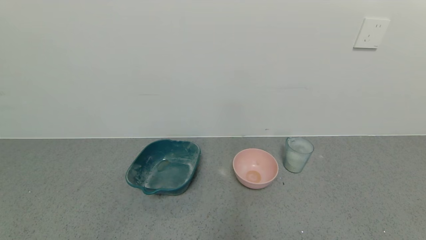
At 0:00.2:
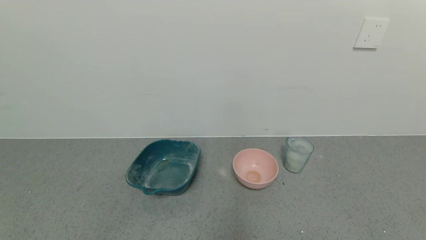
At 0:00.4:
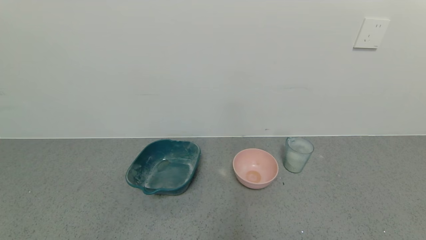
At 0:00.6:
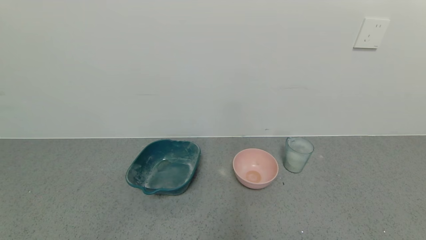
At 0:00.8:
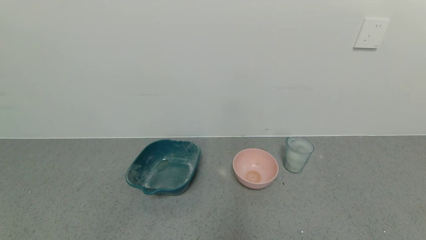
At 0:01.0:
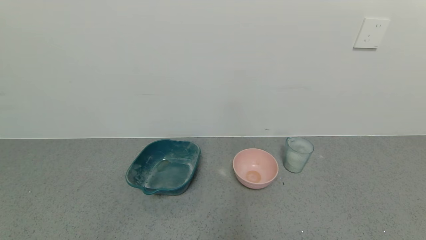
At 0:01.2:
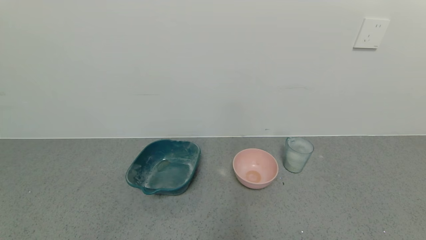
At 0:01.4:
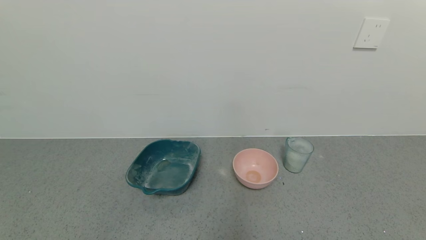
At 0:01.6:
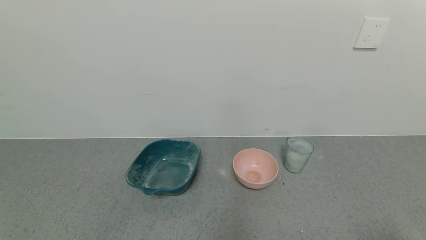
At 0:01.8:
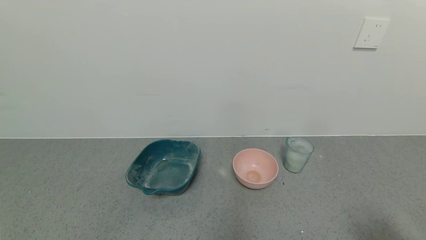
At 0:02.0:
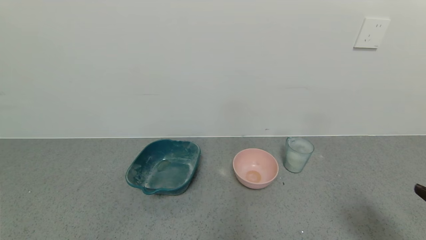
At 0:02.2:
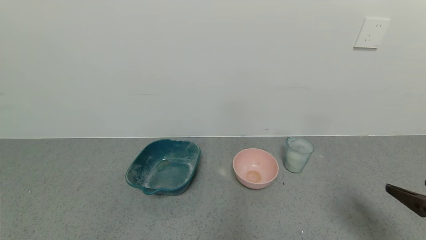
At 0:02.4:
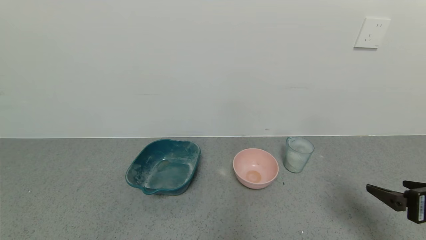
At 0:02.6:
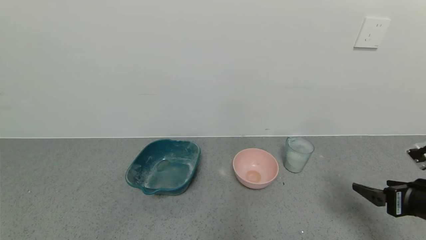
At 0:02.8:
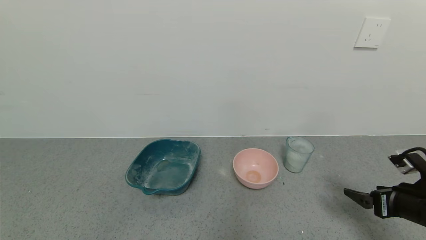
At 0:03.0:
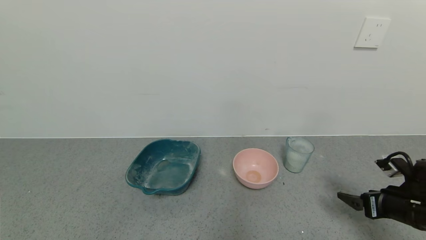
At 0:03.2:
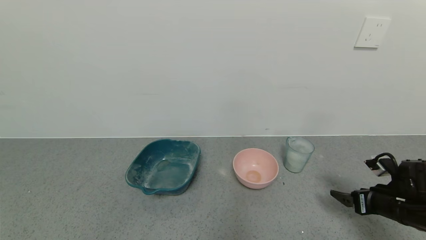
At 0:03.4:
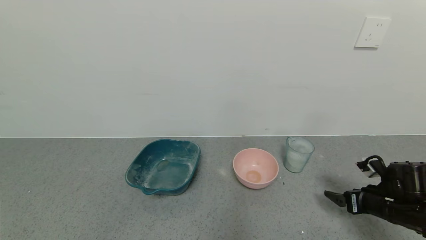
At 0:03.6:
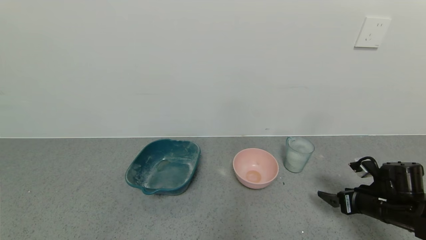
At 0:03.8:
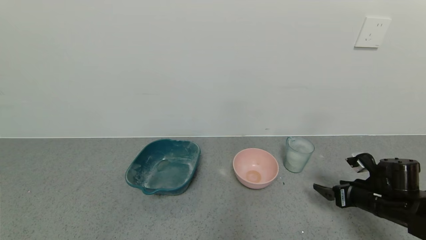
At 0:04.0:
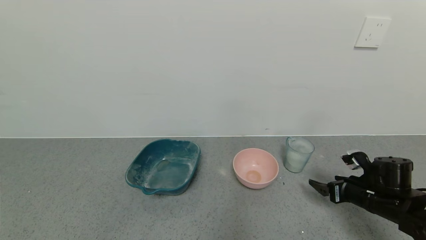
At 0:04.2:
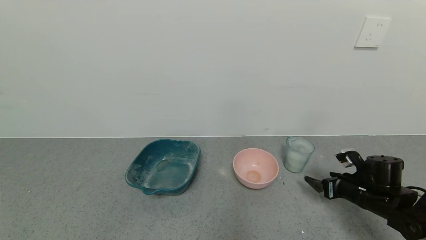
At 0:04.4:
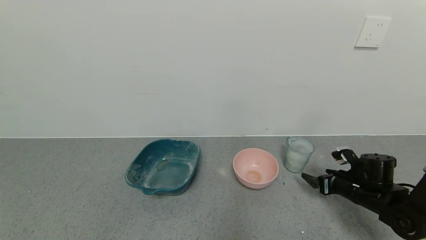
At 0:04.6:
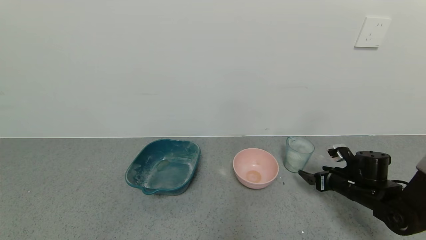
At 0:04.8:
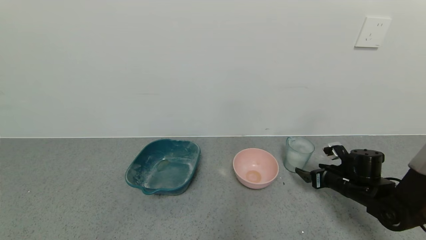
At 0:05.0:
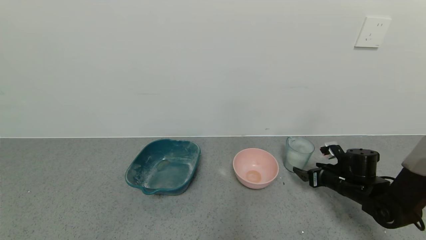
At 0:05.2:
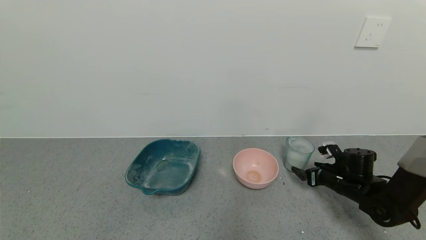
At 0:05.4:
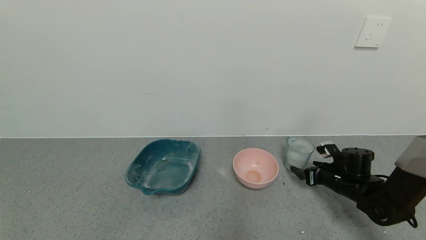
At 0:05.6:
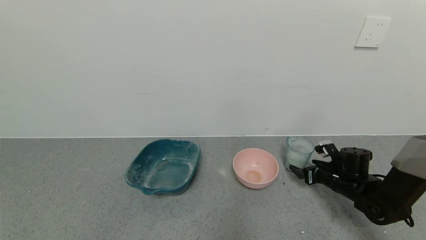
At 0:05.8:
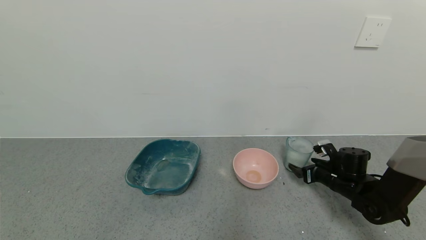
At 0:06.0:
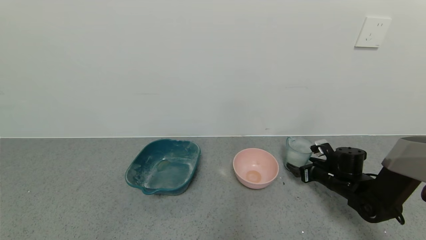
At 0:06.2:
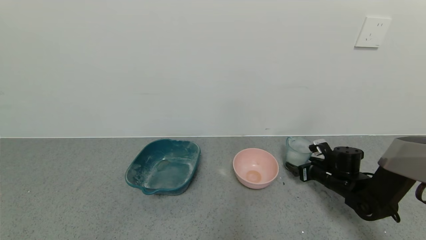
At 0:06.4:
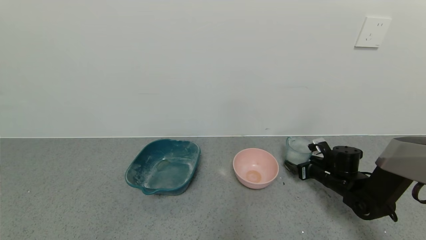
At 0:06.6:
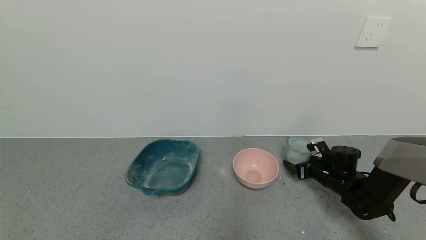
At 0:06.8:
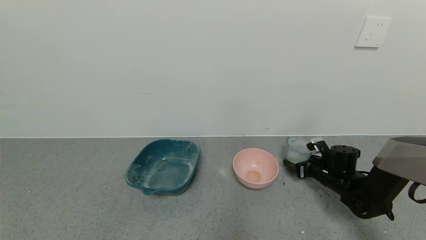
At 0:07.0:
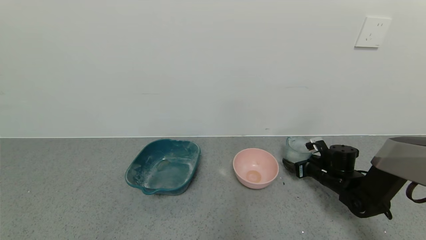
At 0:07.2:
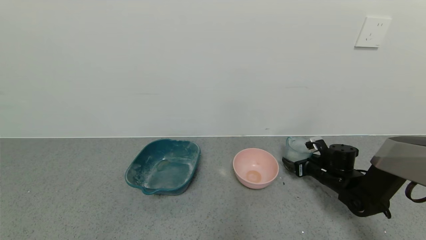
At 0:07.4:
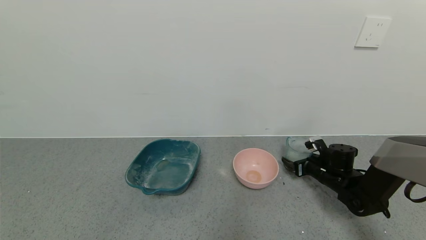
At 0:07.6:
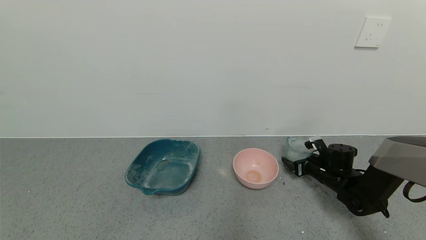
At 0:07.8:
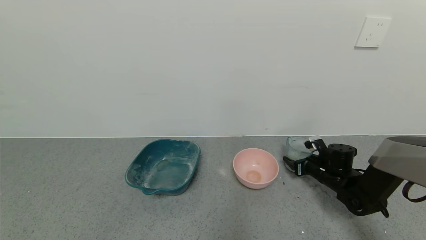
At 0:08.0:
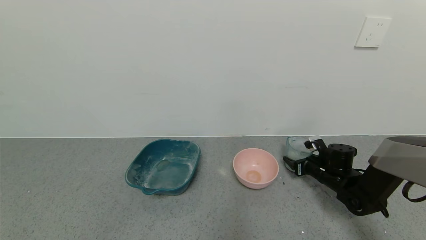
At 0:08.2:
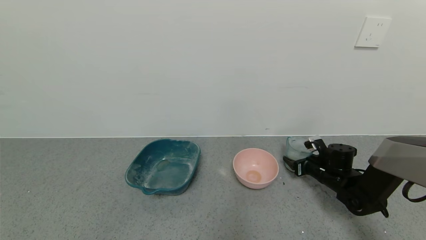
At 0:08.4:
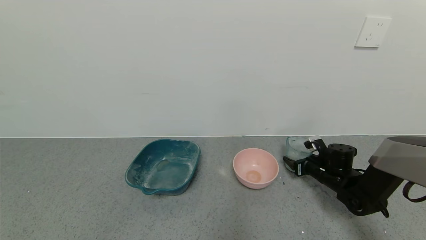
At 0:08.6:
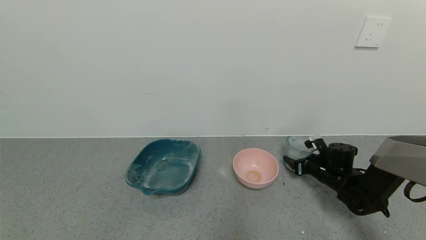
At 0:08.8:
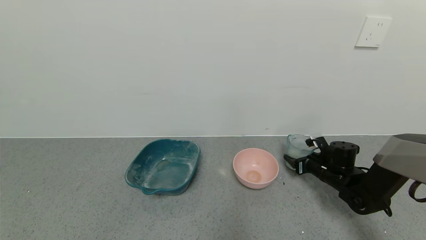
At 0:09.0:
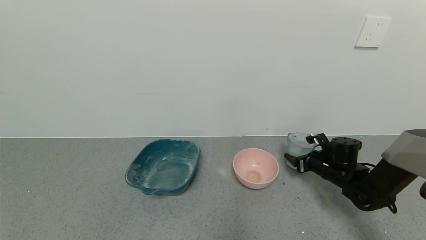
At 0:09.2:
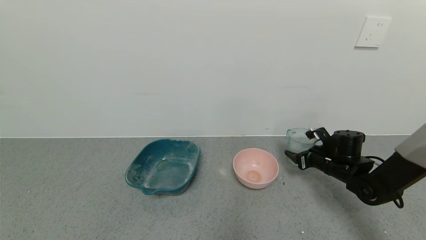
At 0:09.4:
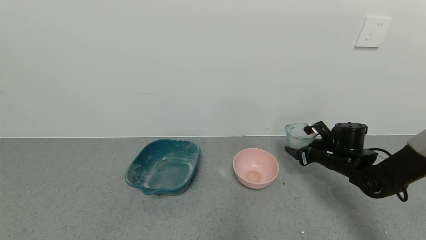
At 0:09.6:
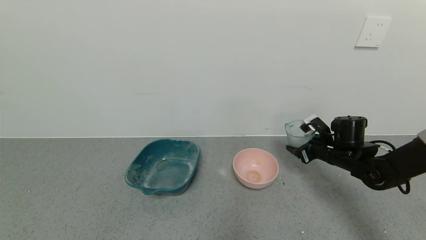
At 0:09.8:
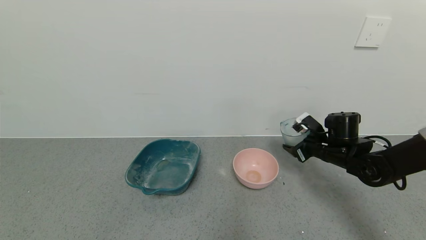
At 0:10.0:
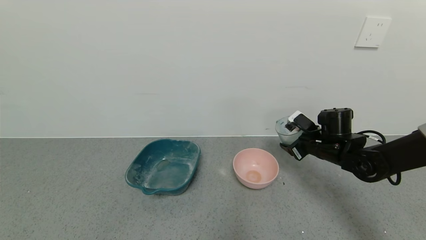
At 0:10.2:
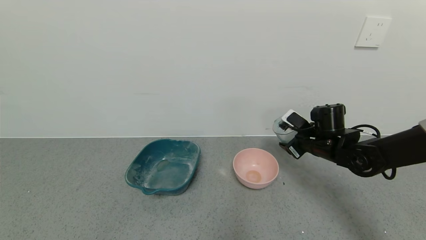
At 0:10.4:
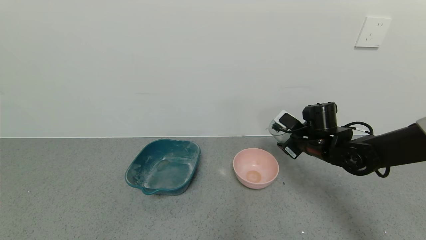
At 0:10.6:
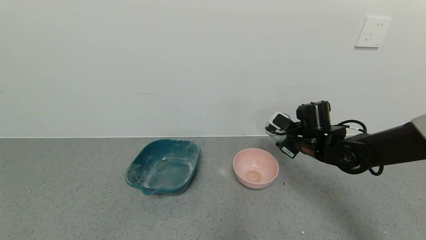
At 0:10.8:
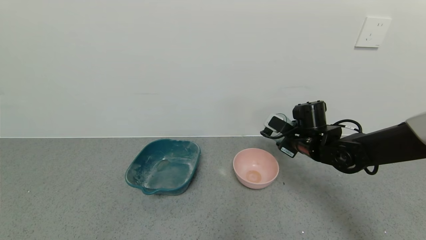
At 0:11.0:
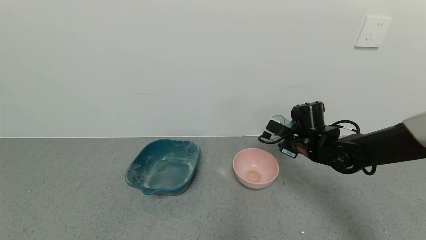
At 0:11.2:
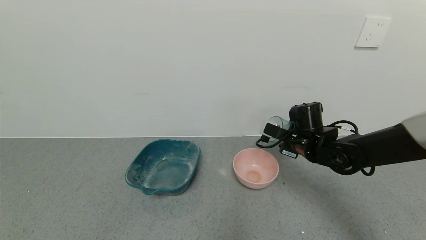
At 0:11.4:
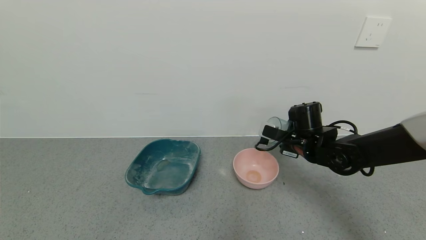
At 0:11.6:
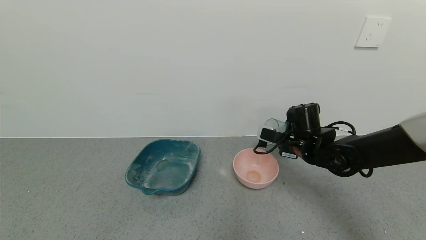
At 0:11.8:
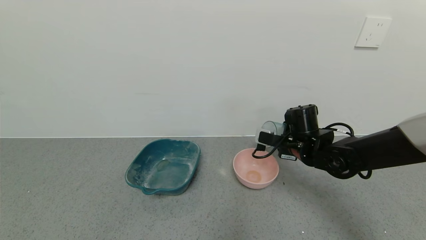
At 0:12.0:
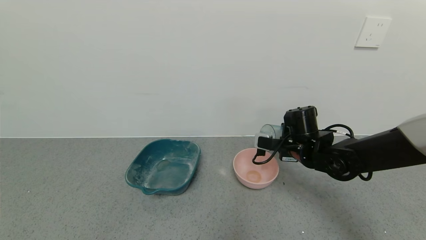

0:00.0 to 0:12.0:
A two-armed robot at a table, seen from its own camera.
Task of the whole recording: use a gripper to pick up the cup and pour the powder into a bowl or tray.
Step, 0:00.0 to 0:08.0: Grasp the glass of powder with the right gripper.
0:01.6 to 0:03.0: The right gripper moves forward and downward, about 25 cm.
0:03.0 to 0:04.4: The right gripper travels forward and downward by roughly 10 cm.
0:04.4 to 0:06.0: The right gripper heads forward, covering some 5 cm.
0:06.0 to 0:07.6: The grippers stay close to where they were, moving slightly.
0:07.6 to 0:09.0: The right gripper closes up.
0:09.0 to 0:10.4: The right gripper travels upward and to the left by approximately 10 cm.

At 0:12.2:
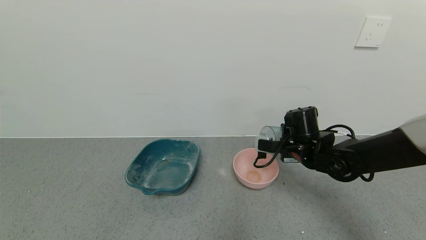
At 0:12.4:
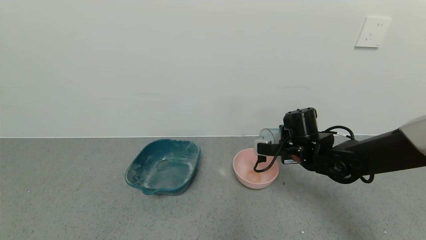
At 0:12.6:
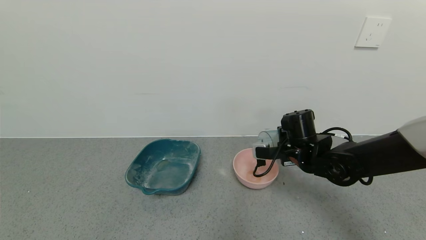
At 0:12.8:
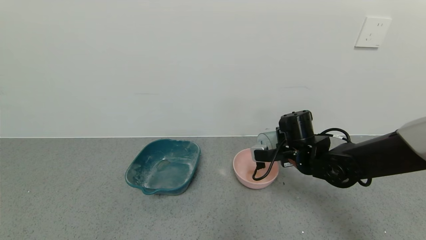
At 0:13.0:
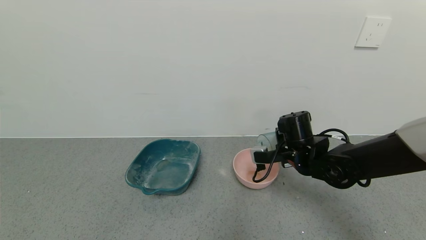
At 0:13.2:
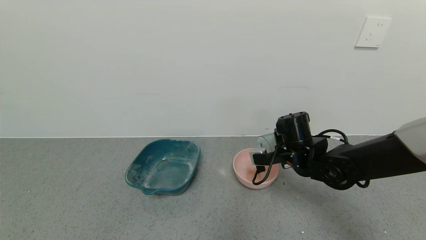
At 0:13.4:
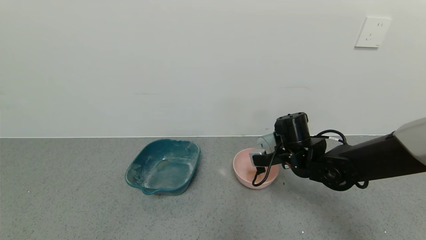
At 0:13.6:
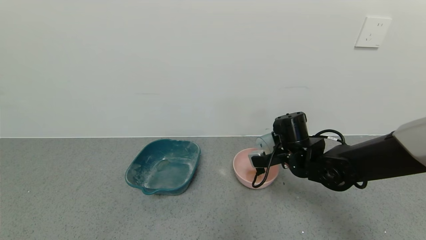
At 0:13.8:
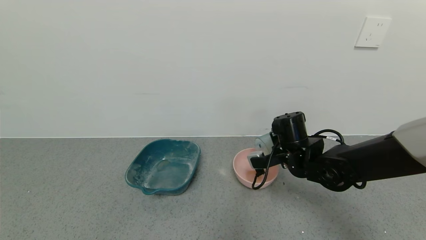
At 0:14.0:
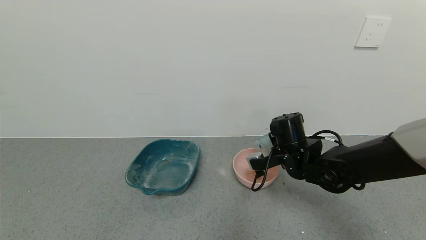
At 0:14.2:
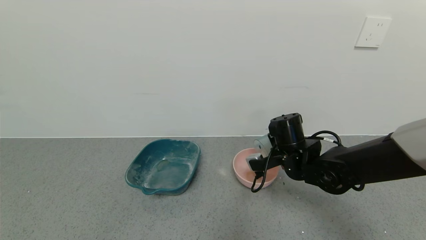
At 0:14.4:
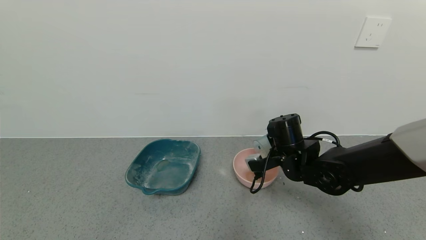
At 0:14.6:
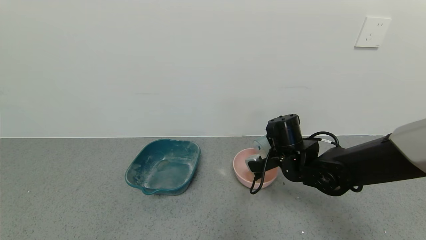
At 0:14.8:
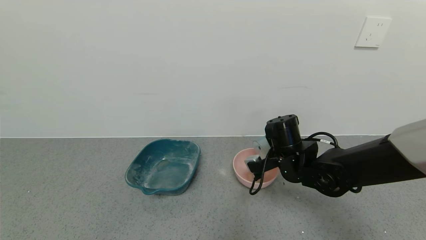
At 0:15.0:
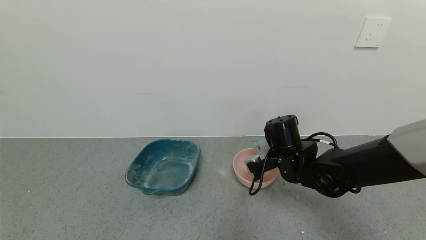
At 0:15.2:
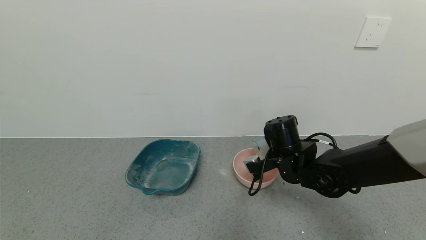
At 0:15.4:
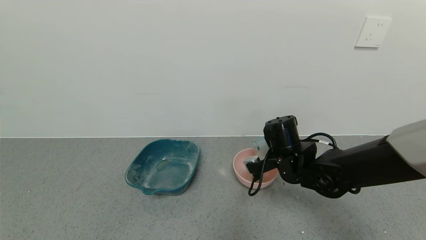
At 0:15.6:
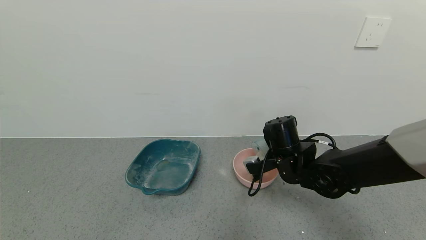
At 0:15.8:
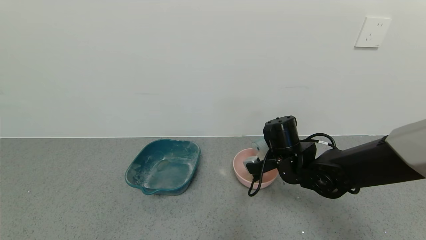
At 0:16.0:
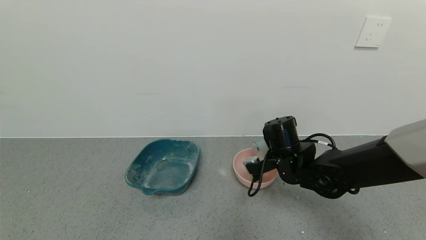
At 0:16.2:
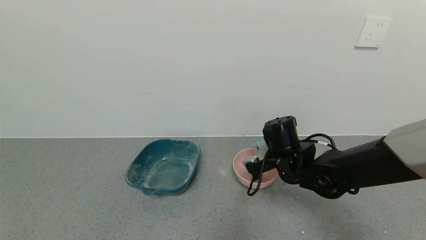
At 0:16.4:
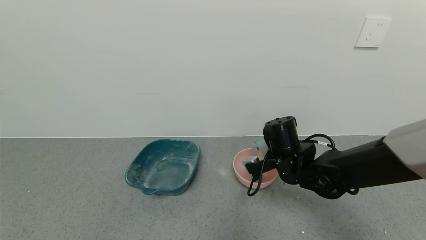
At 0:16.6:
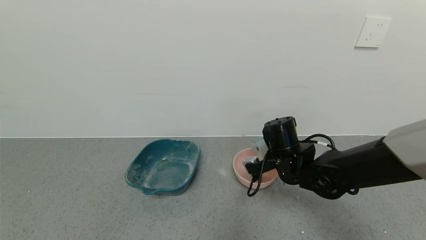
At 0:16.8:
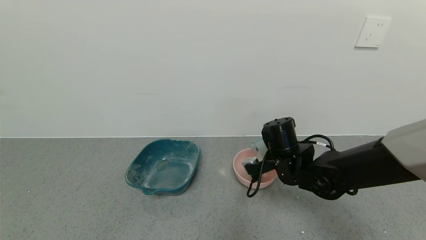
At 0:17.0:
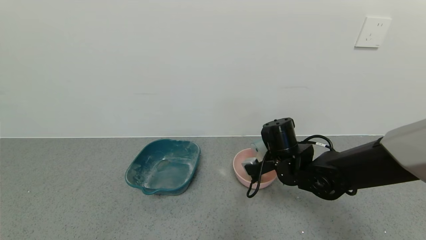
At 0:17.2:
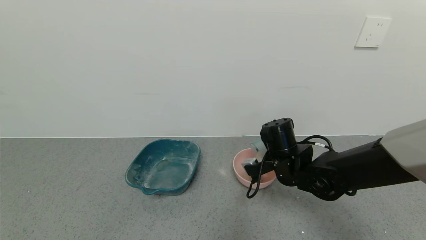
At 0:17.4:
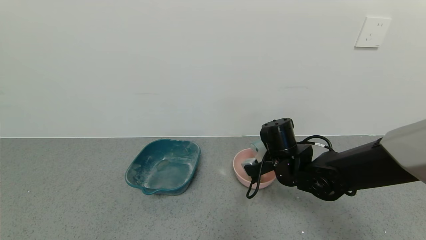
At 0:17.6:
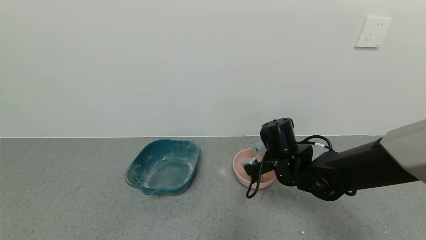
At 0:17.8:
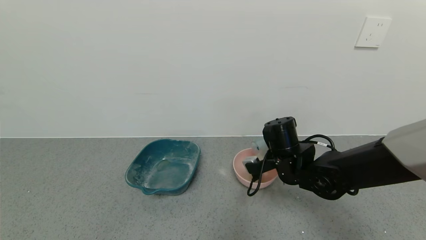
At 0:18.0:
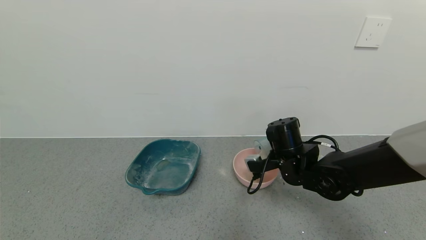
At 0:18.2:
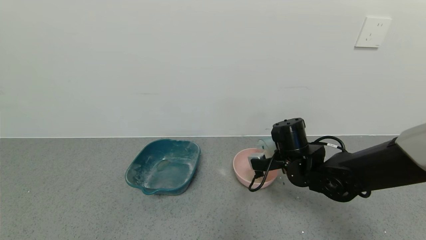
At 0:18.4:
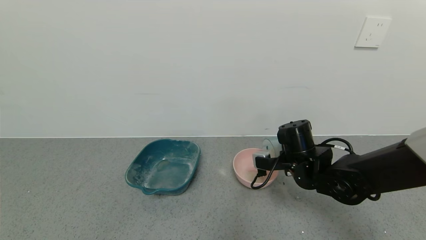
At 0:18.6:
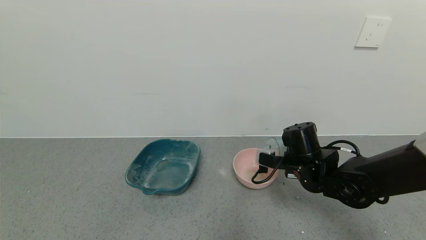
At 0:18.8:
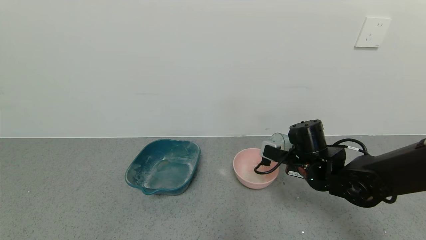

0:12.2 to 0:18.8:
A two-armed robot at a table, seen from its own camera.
Task of the whole recording: use a gripper to pick up the cup and pour the powder into a bowl or tray.
Step, 0:12.2 to 0:17.8: Pour the powder into the pink bowl with the right gripper.
0:13.8 to 0:15.4: There are only small adjustments of the grippers.
0:15.4 to 0:17.2: Both grippers stay about where they are.
0:17.2 to 0:18.8: The right gripper heads to the right, covering about 5 cm.
